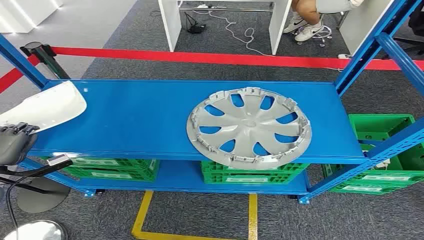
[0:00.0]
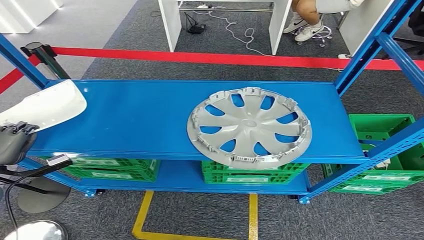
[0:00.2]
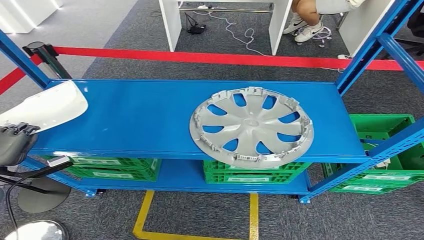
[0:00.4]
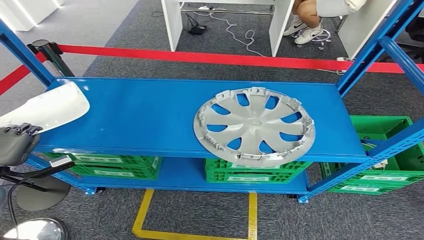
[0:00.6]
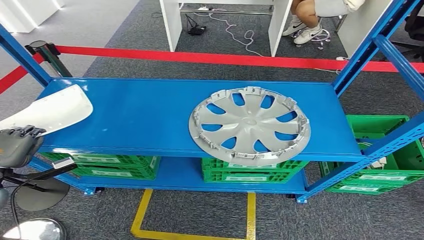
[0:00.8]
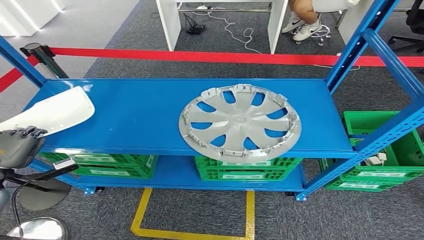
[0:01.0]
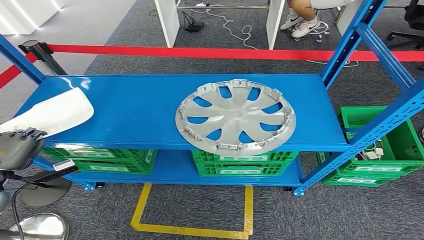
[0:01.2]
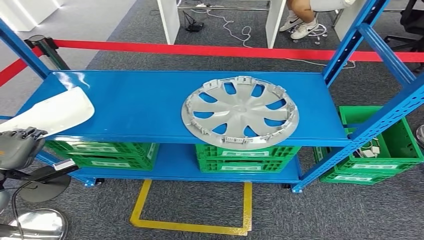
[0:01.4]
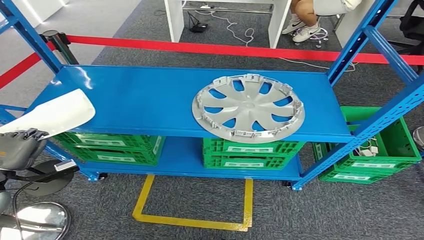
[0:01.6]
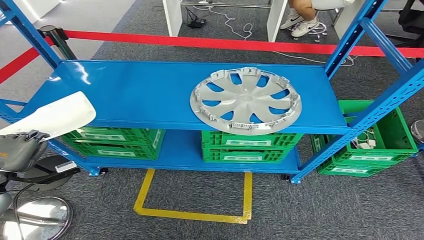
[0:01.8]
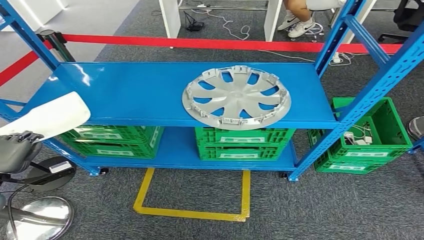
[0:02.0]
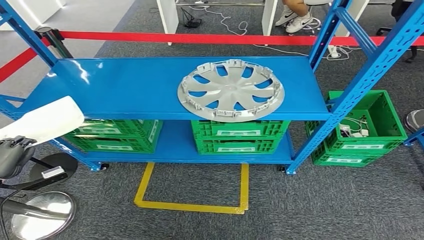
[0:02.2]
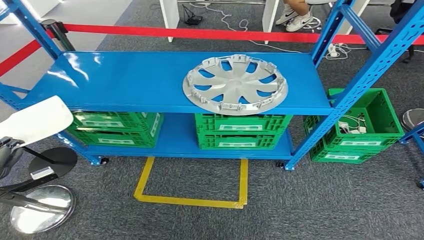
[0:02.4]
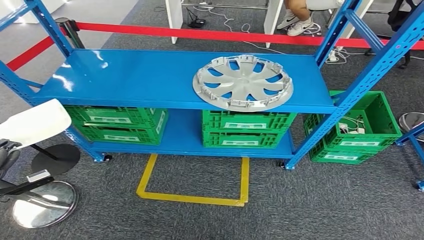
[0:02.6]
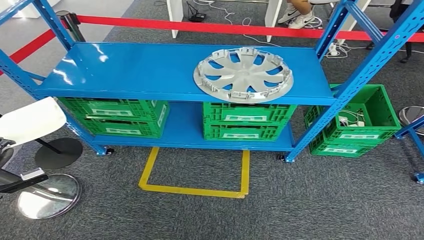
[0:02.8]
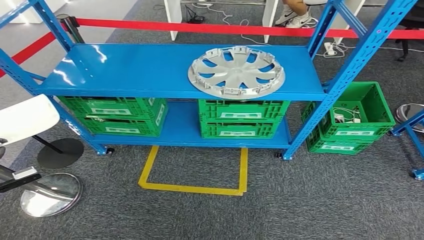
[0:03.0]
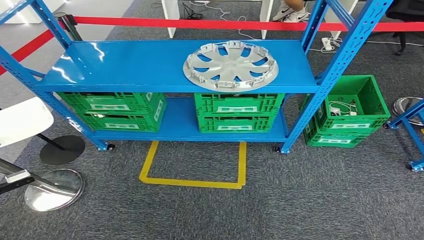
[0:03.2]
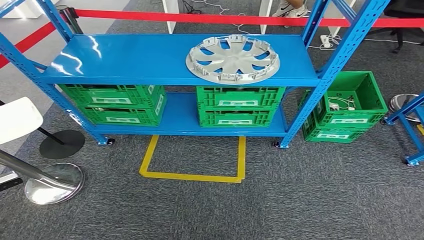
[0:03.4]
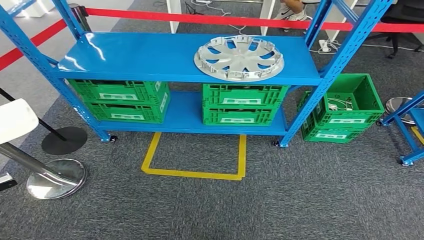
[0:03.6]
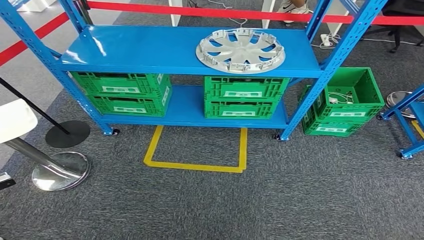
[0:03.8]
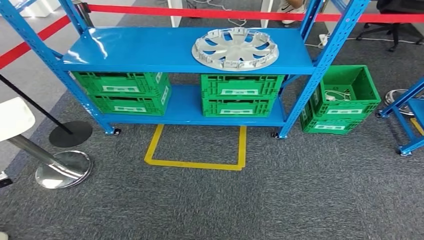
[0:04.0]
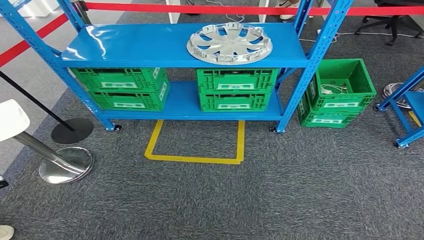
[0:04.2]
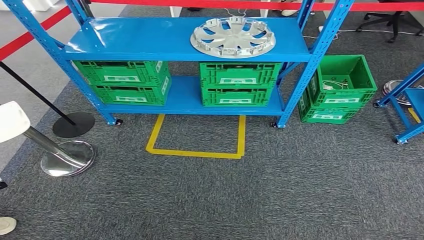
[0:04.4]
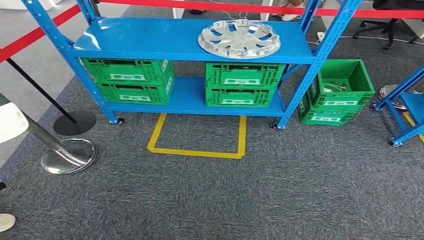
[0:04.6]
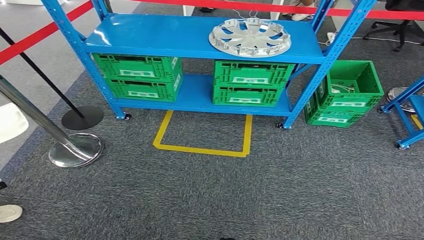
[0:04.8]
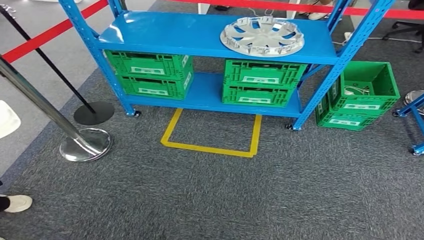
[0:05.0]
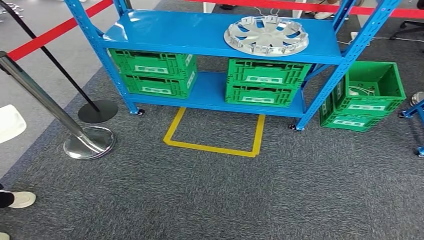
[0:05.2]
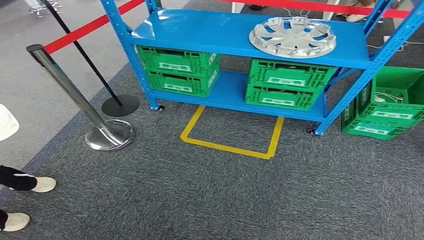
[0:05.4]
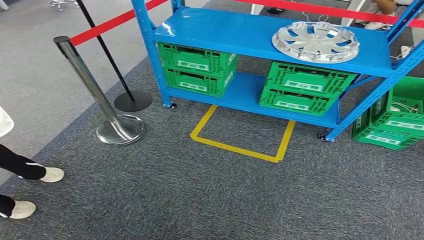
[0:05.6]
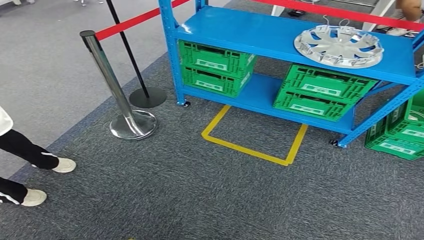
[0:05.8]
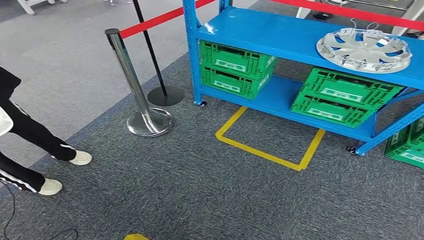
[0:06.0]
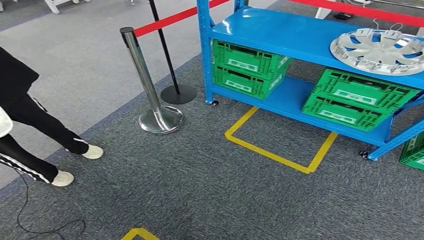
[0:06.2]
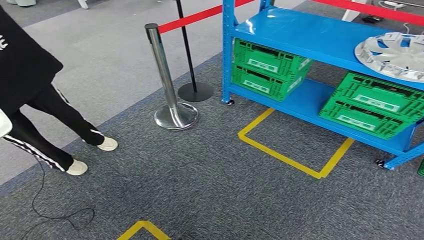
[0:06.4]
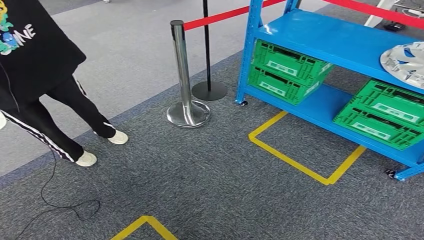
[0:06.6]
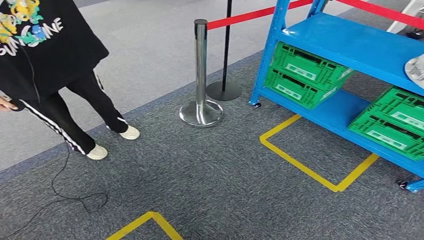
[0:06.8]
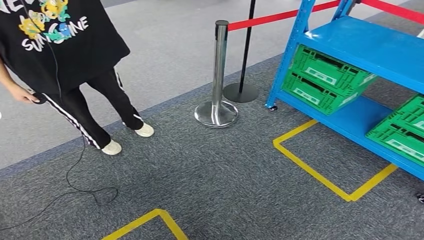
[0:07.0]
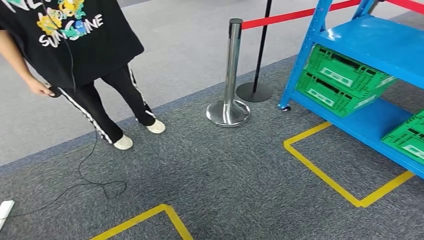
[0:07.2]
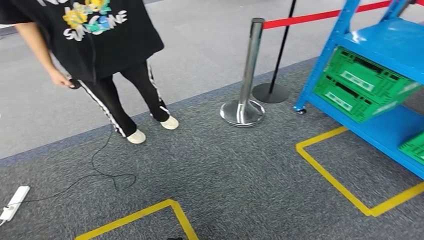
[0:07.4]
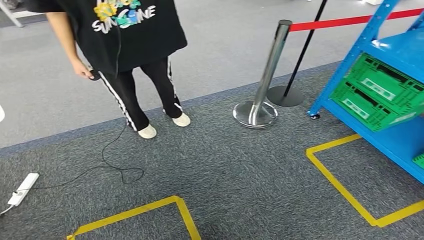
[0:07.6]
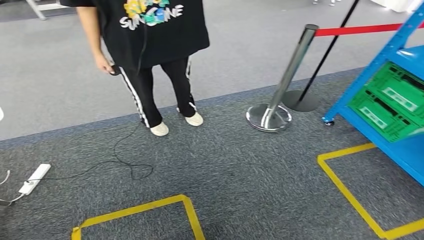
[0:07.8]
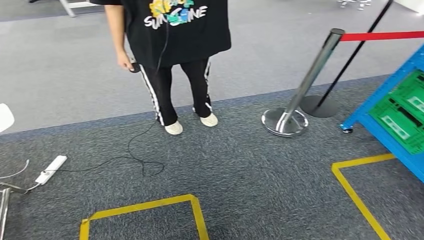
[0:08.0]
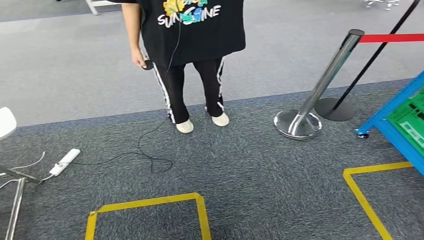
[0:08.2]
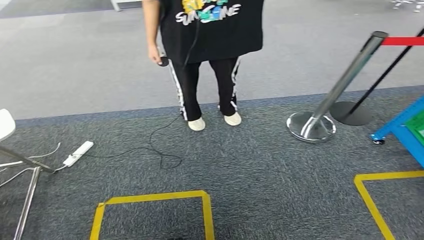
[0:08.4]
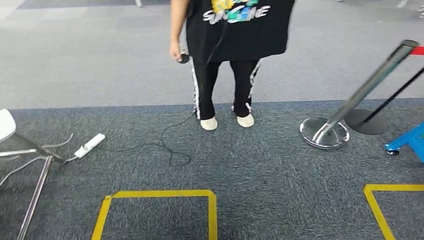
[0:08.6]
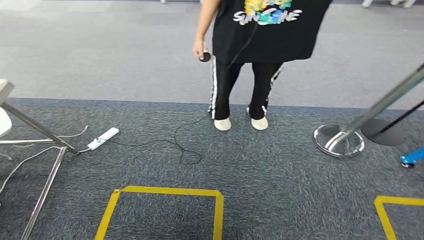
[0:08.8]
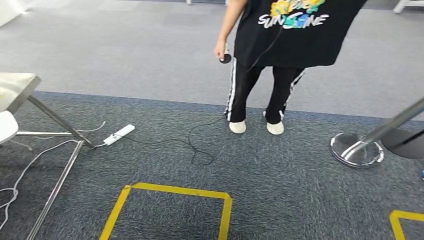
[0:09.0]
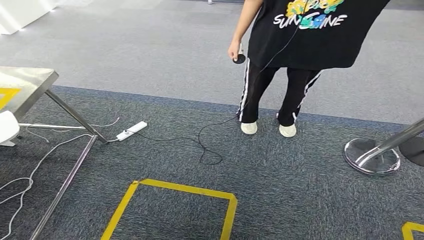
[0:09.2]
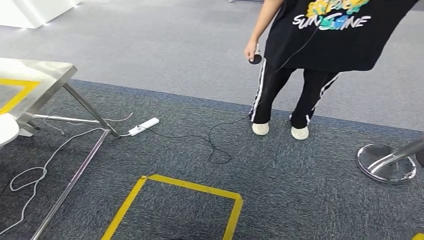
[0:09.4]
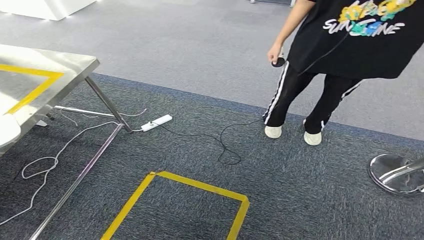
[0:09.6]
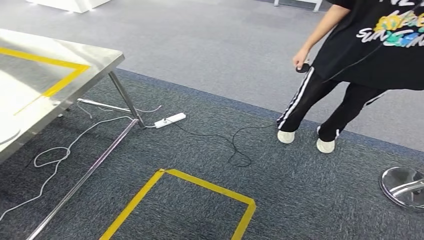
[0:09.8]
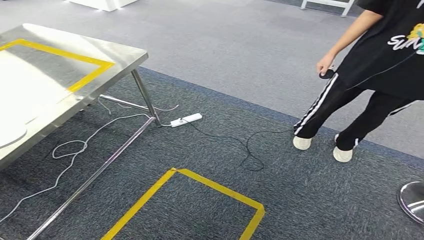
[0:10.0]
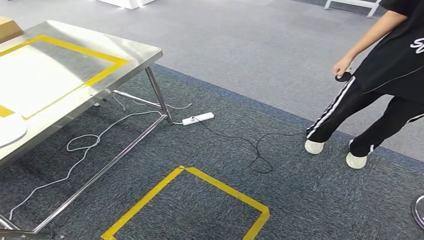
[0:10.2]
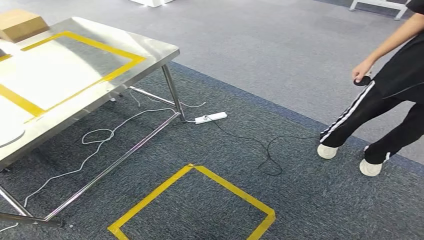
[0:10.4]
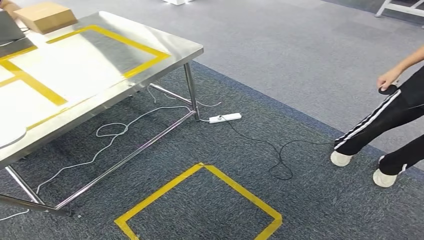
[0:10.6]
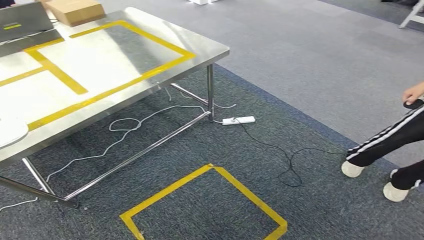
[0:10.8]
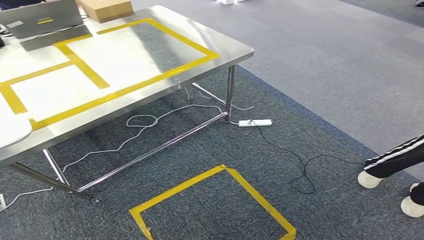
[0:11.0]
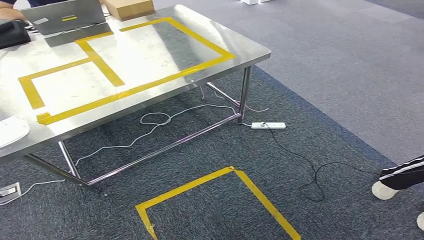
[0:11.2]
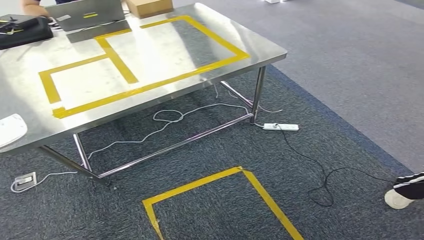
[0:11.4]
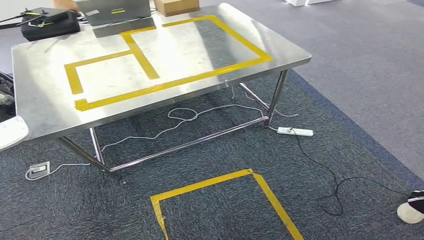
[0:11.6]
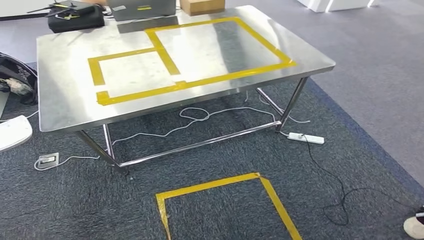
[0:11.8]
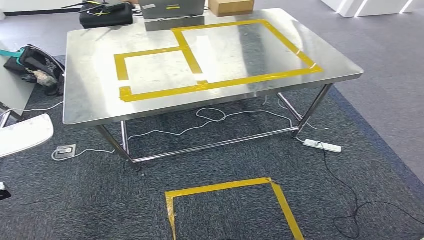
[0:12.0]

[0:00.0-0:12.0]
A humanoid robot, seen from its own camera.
Step, 0:00.0 to 0:02.2: Pick up the small component from the shelf.
Step, 0:02.4 to 0:11.0: Move the small component to the workbench.

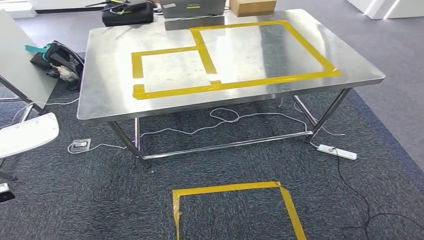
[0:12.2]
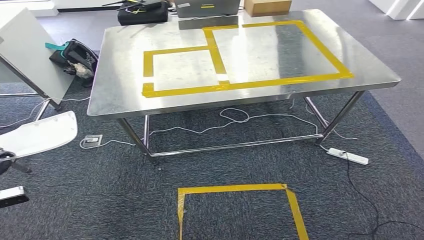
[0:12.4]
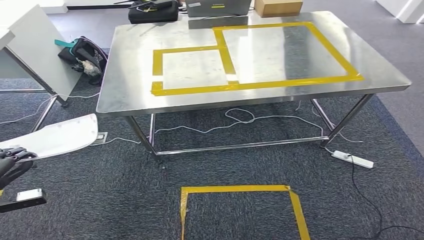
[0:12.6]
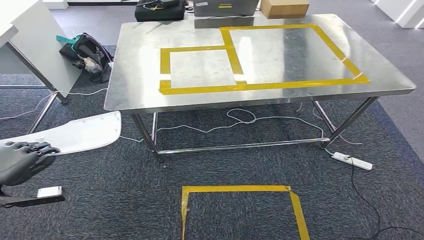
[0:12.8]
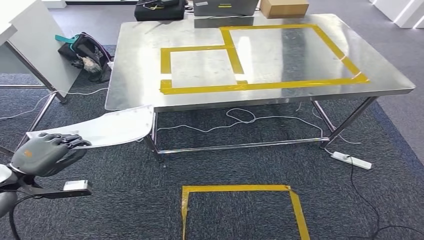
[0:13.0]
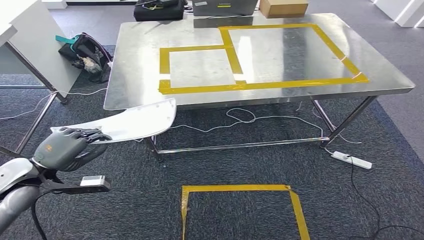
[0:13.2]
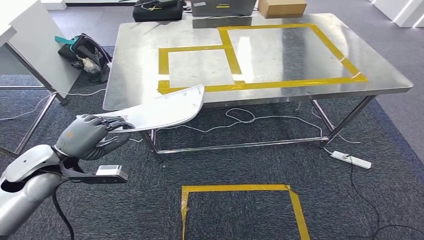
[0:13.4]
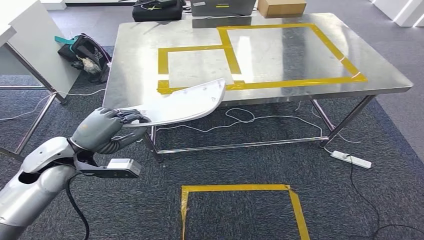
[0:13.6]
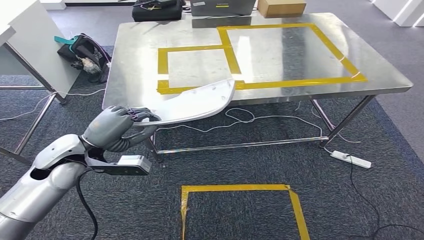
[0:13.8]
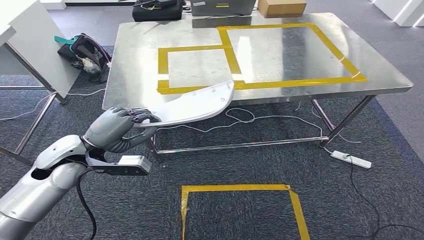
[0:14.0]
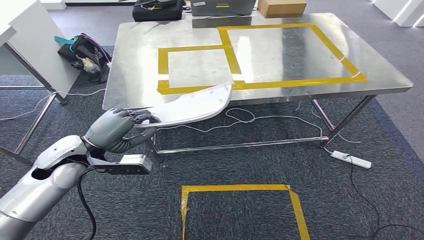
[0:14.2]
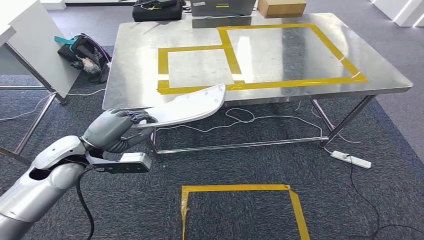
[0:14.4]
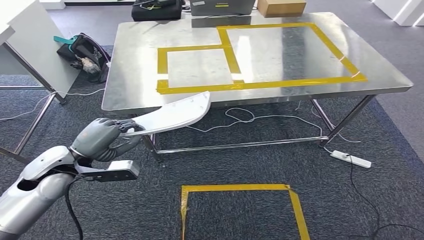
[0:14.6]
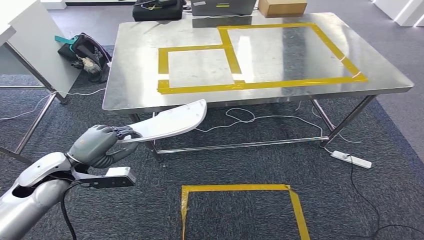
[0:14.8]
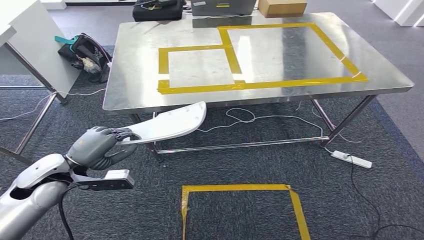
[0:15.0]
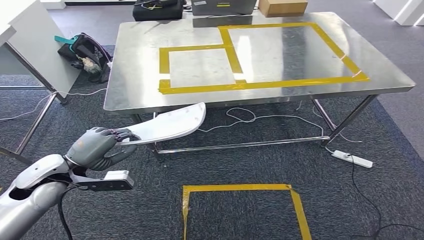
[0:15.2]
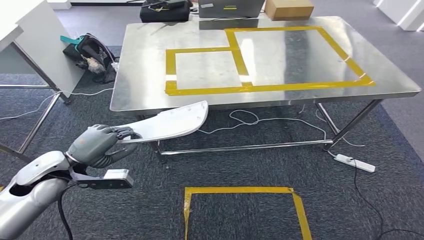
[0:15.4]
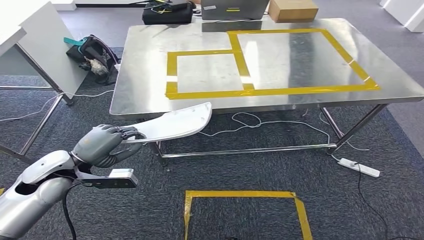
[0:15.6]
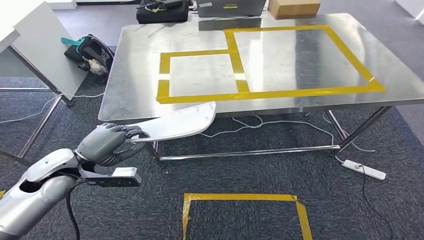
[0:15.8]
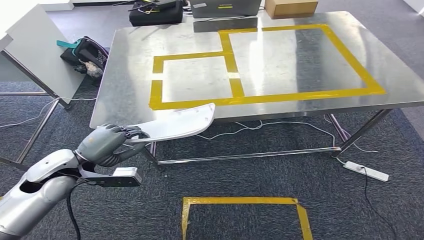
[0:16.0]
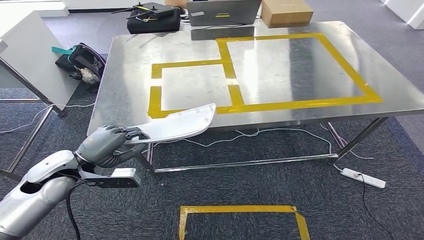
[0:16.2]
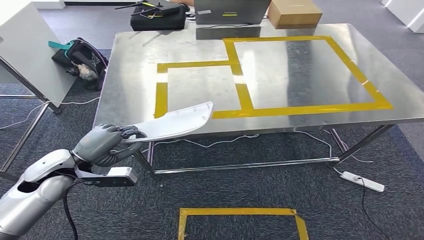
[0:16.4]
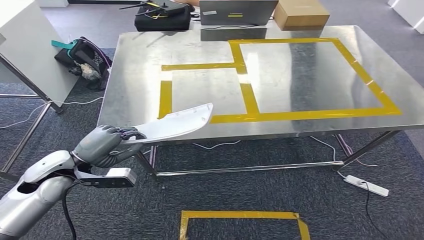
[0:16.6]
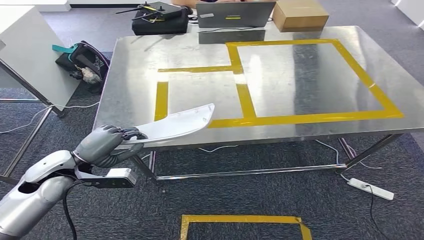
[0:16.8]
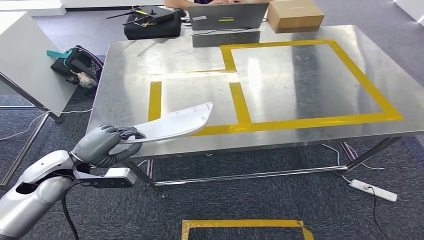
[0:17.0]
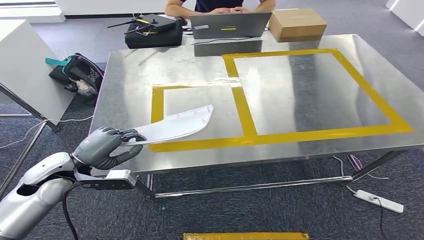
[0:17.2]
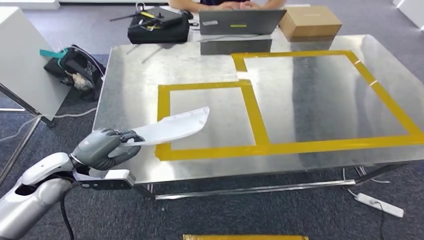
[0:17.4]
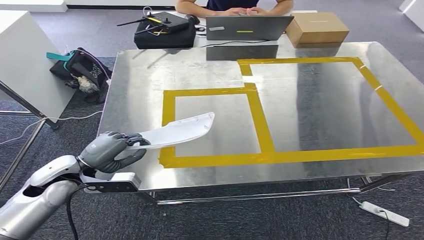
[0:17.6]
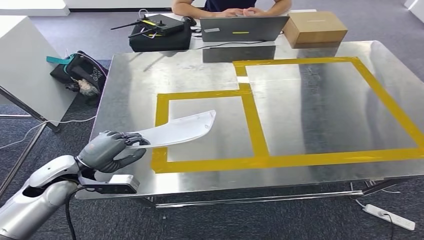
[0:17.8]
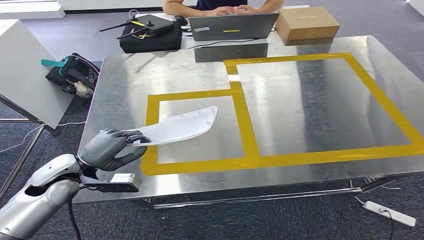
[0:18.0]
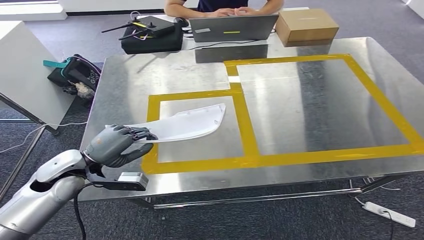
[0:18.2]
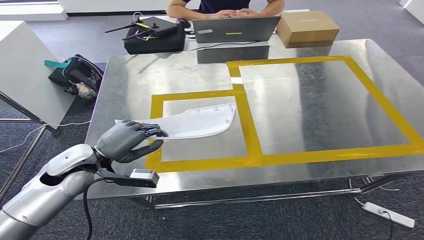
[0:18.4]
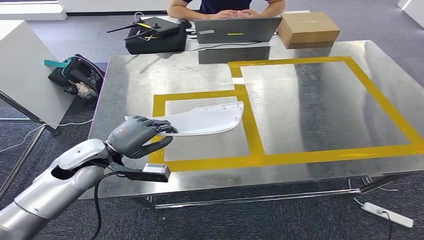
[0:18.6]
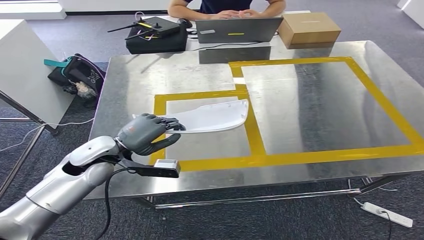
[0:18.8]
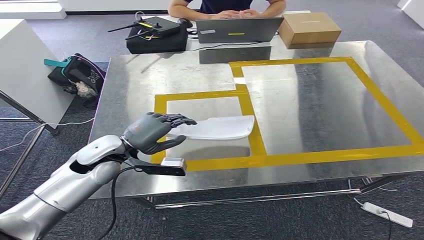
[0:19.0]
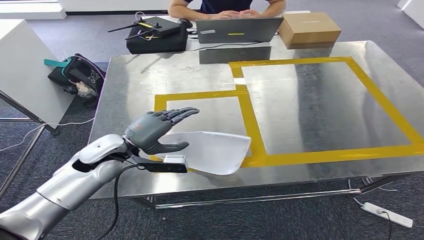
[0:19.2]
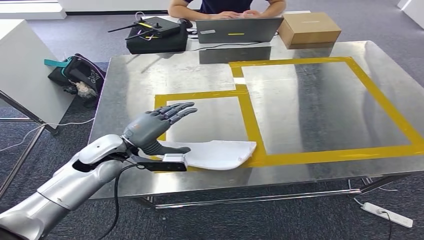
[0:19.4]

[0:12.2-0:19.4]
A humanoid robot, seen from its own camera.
0:13.6 to 0:15.0: The left hand moves approximately 5 cm.
